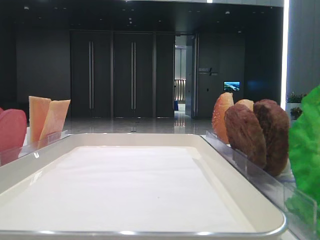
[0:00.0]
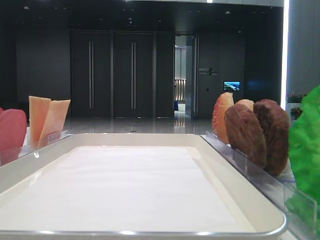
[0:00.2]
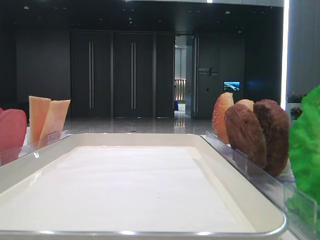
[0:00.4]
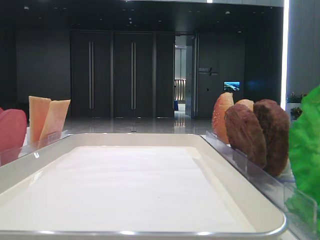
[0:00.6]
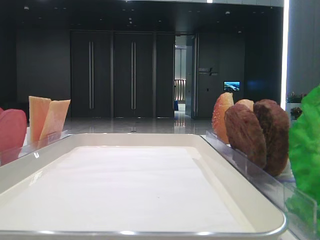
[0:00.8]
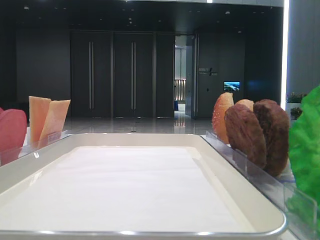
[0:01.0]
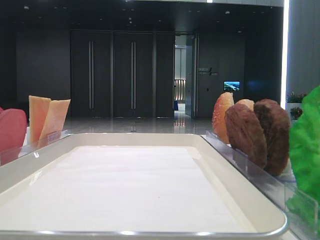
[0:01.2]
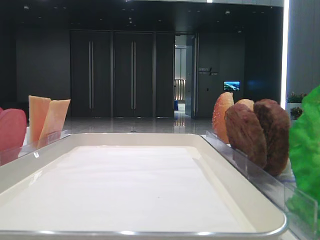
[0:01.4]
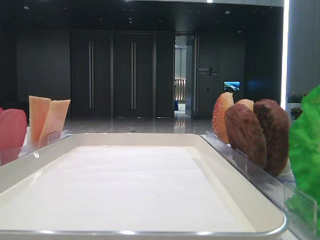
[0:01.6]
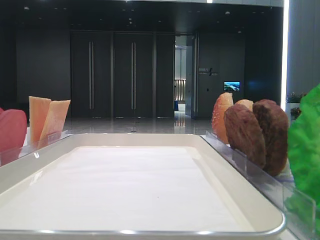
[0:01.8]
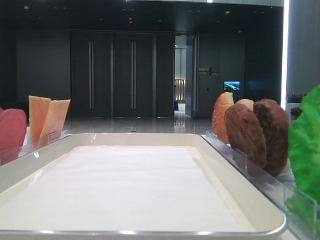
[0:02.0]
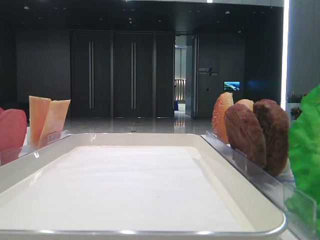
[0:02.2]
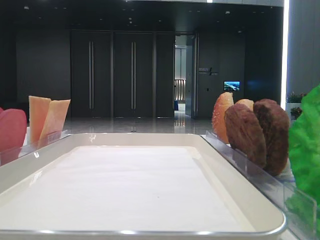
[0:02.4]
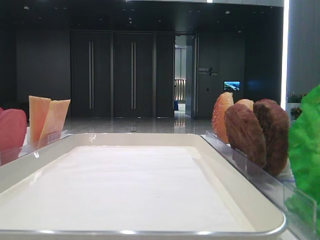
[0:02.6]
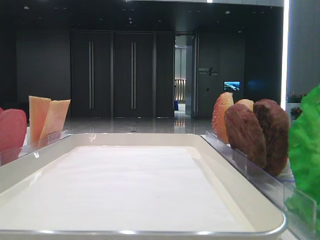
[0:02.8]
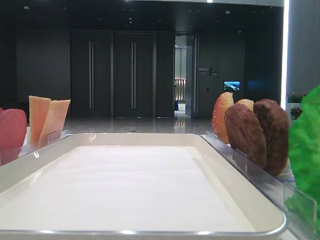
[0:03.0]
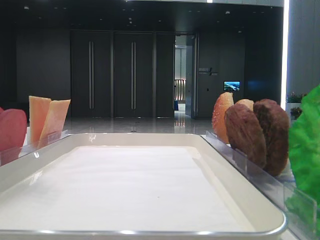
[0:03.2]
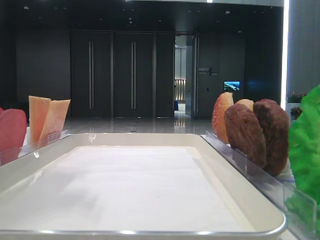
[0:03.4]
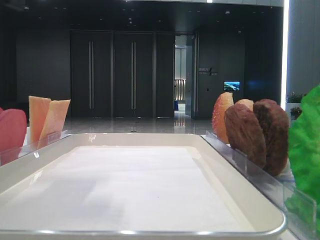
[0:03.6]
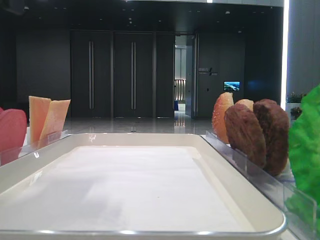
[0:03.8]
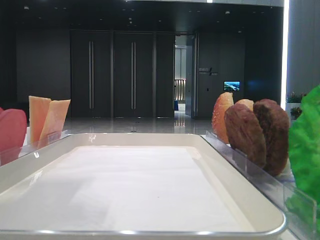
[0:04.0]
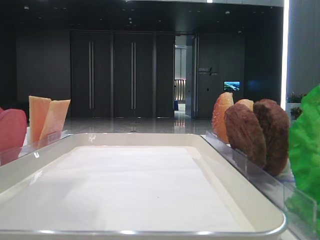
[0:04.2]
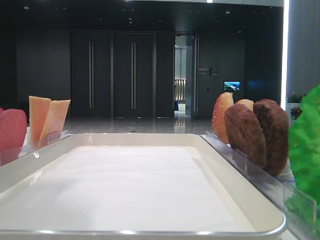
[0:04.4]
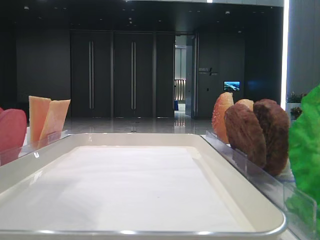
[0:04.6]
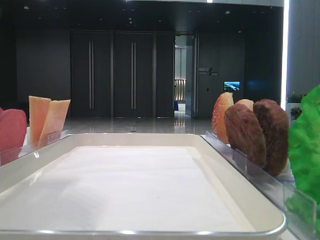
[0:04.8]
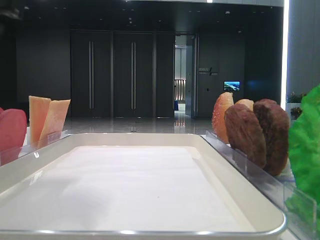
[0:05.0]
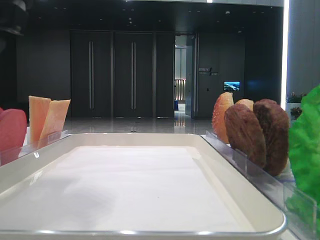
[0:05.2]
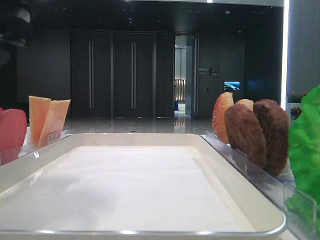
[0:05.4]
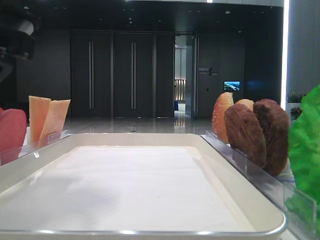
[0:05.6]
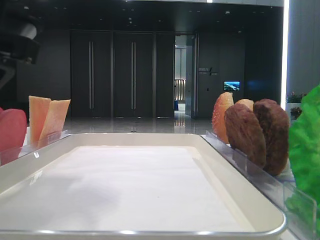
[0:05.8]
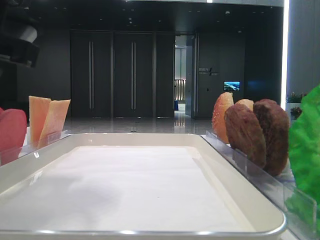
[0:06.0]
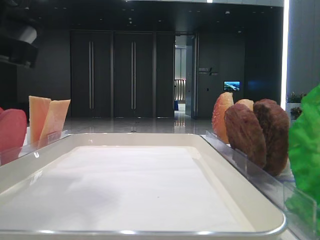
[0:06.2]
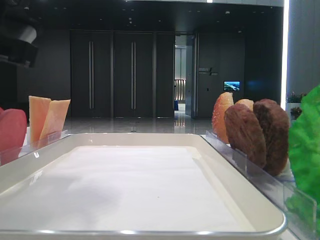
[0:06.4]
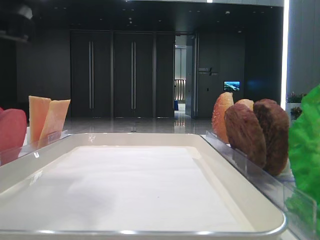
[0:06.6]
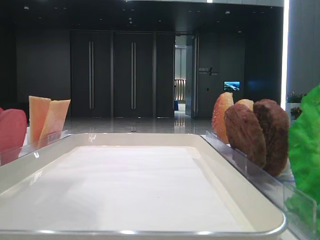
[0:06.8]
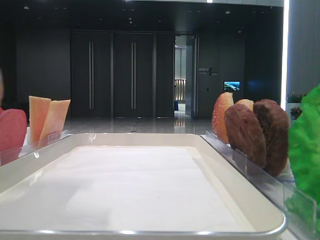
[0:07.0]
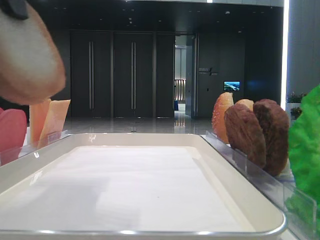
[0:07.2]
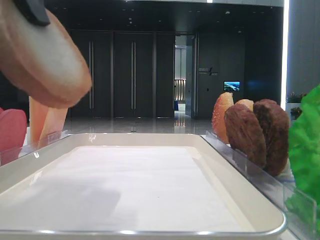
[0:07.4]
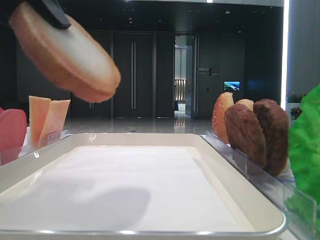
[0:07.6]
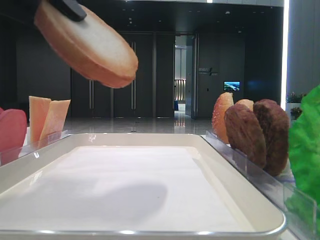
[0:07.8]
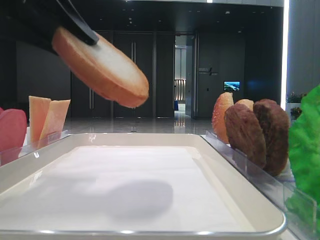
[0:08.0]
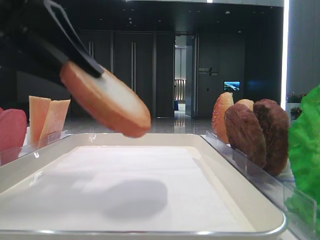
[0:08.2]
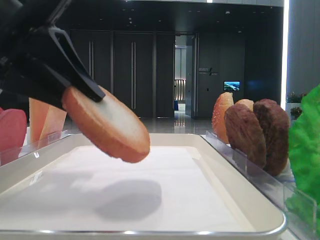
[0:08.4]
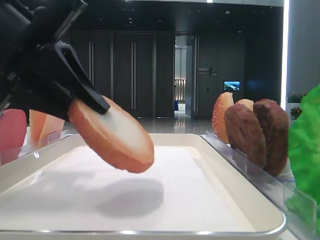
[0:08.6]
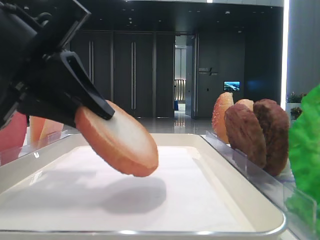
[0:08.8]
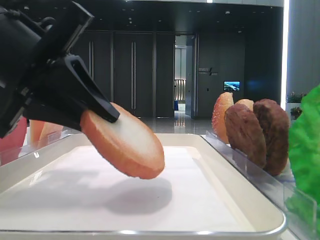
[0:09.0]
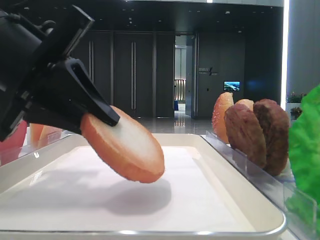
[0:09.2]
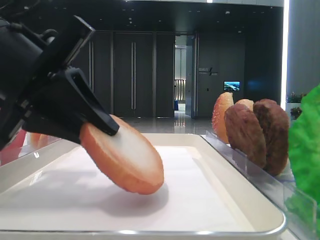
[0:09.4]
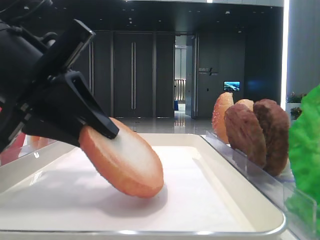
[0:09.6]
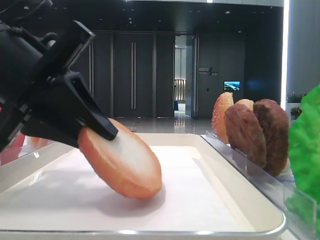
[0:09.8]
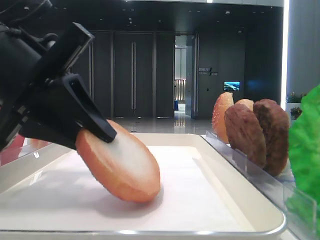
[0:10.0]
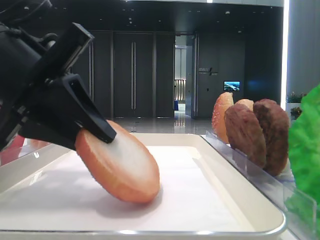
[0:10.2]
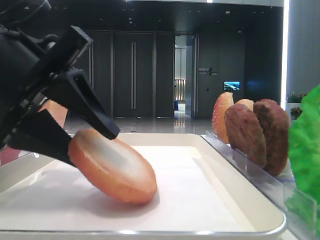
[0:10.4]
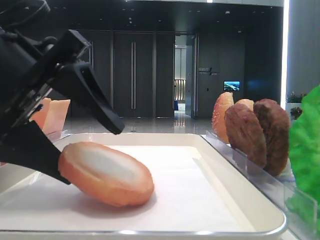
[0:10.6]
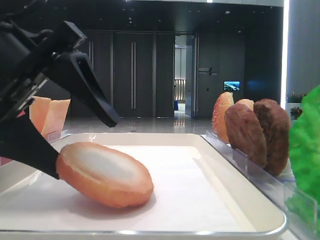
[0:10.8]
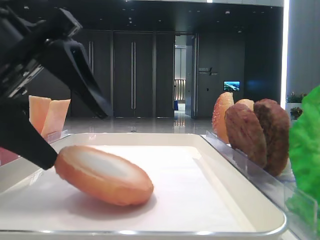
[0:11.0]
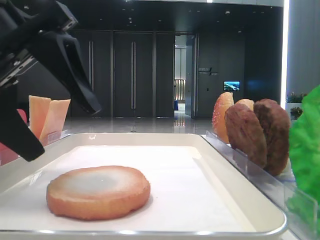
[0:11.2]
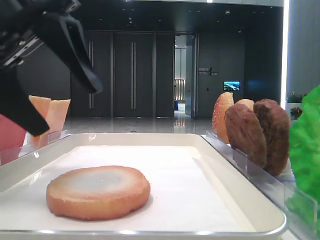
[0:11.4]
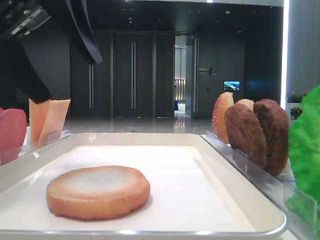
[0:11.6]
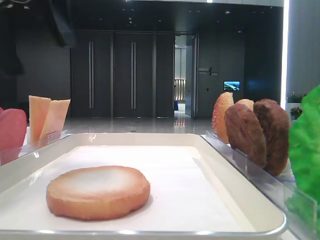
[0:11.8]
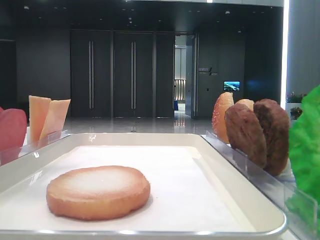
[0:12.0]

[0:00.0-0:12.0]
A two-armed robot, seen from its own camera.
Step, 0:00.0 to 0:06.4: Pick up the bottom bread with the left hand.
Step, 0:06.6 to 0:11.0: Place the bread on the tray with the left hand.
0:03.0 to 0:04.4: The left gripper is displaced to the right and backward by approximately 10 cm.
0:04.4 to 0:06.0: The left gripper is displaced downward by about 5 cm, and closes up.
0:07.6 to 0:09.0: The left gripper goes roughly 10 cm downward.
0:09.0 to 0:10.4: The left gripper opens its fingers.
0:10.4 to 0:12.0: The left gripper shifts about 15 cm upward and to the left, and opens.

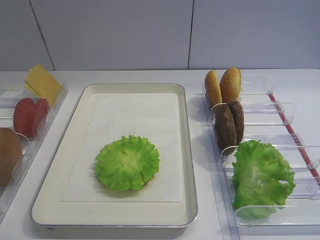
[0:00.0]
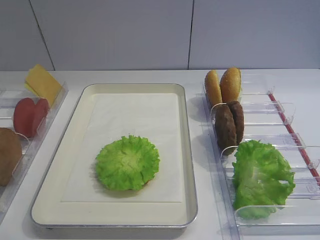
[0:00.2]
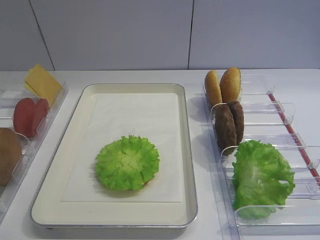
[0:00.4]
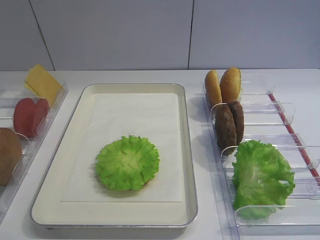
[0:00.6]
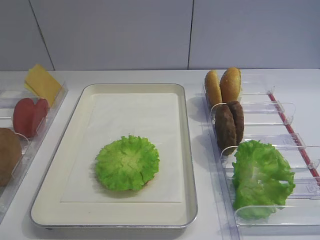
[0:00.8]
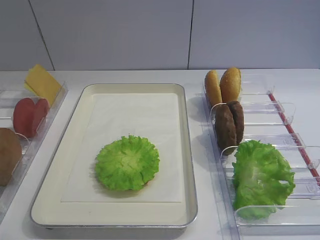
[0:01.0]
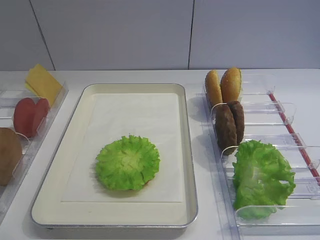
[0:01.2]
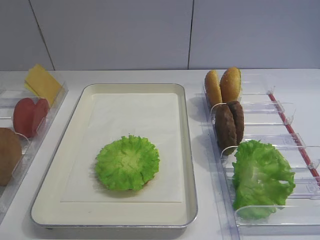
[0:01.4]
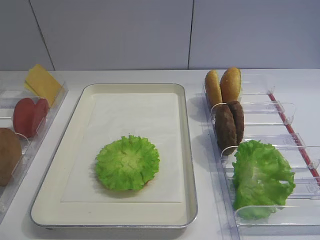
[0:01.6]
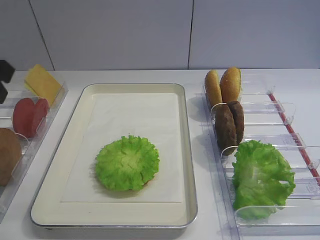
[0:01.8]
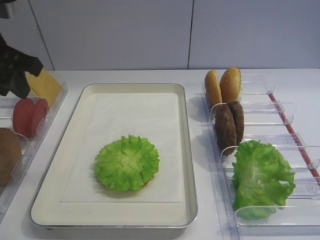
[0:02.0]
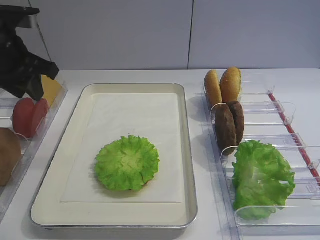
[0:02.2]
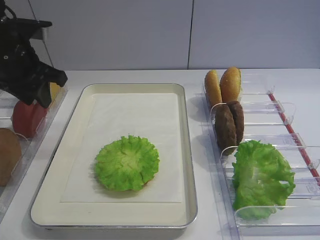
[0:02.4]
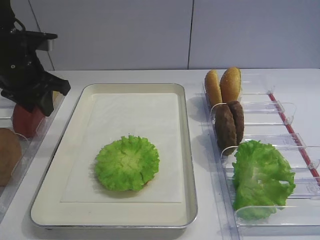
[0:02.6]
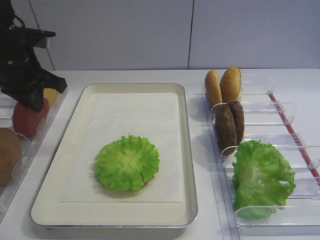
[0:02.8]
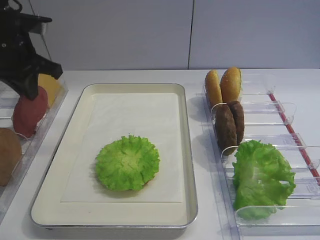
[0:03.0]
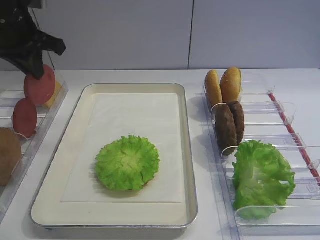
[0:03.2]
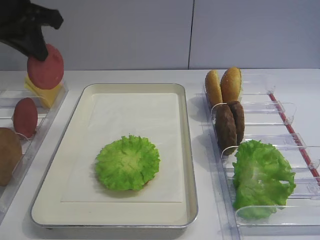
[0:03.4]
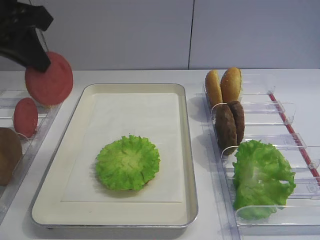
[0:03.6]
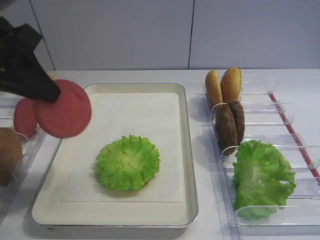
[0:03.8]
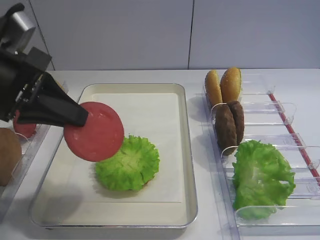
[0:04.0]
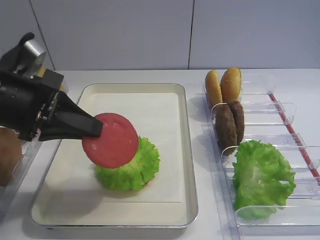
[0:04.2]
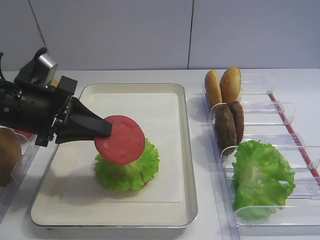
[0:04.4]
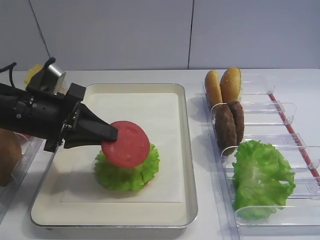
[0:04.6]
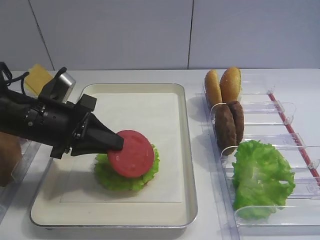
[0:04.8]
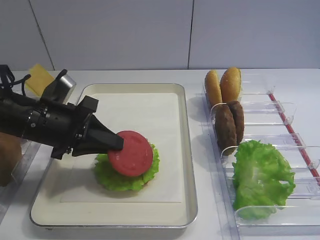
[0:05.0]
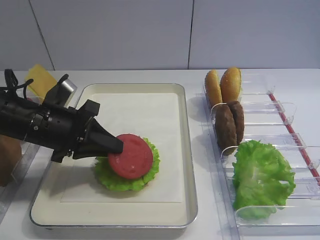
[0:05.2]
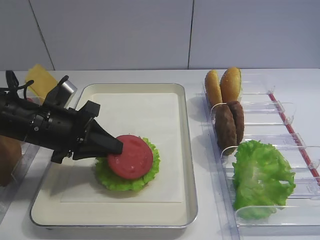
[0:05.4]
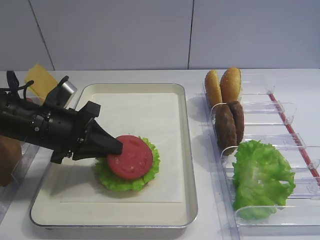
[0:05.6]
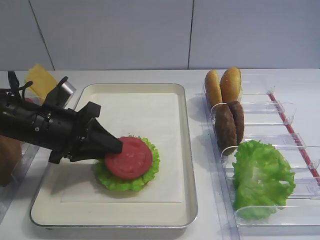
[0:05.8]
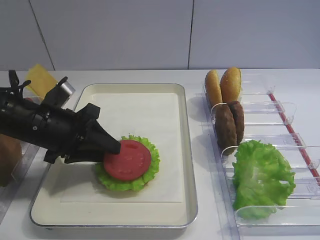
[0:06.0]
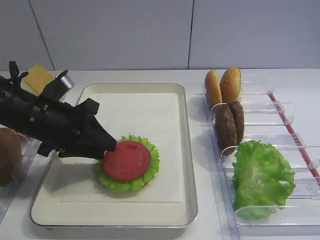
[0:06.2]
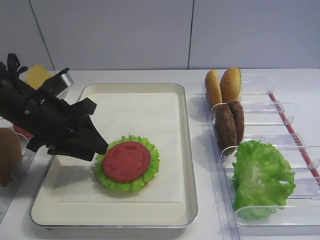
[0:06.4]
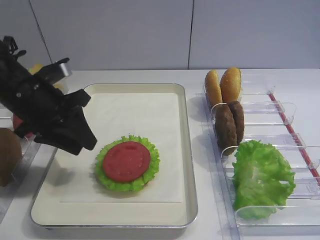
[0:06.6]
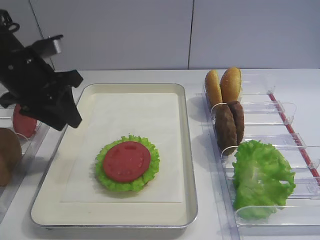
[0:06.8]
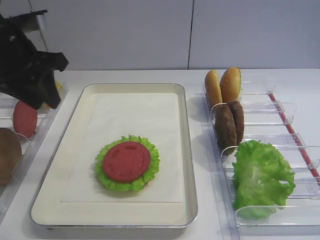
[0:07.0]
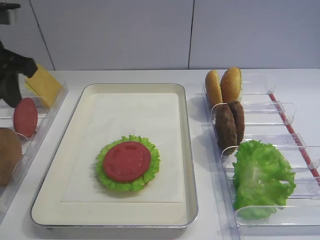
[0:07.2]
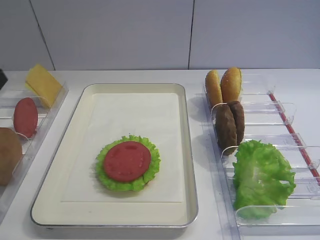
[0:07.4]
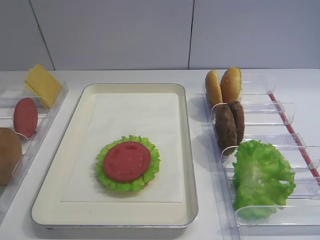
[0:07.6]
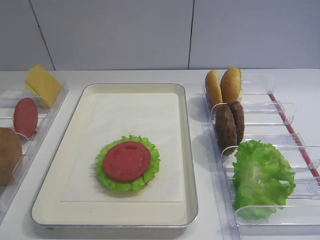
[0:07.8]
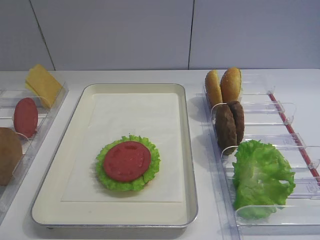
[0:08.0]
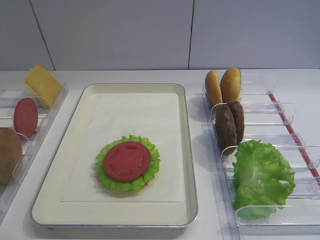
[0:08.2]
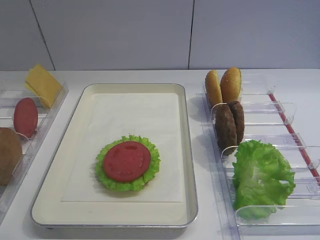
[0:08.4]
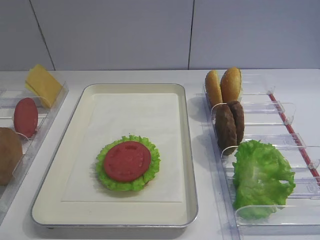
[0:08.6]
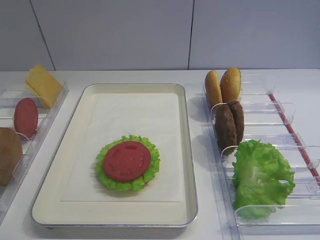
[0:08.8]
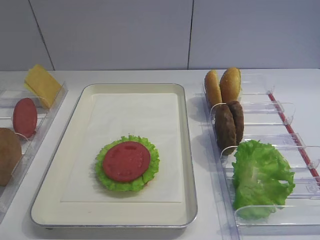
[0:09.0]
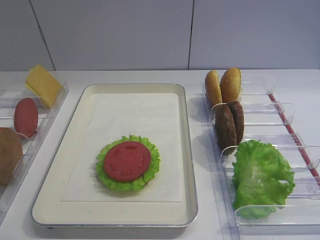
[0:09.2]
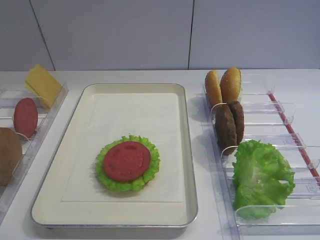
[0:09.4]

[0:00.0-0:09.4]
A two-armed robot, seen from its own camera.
Step, 0:00.0 to 0:03.2: Pick up the tomato slice with the left gripper.
Step, 0:03.4 to 0:06.6: Place the tomato slice on the lettuce leaf with the left gripper.
0:01.6 to 0:03.2: The left gripper moves forward, some 30 cm, and closes up.
0:03.2 to 0:04.8: The left gripper goes about 15 cm backward, downward and to the right.
0:04.8 to 0:06.2: The left gripper opens its fingers.
0:06.2 to 0:07.8: The left gripper moves upward, to the left and backward, approximately 20 cm.

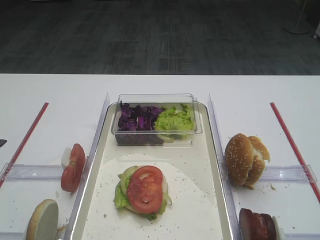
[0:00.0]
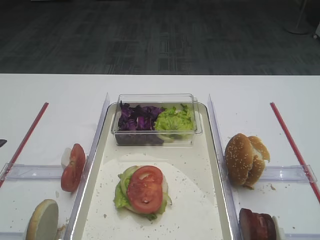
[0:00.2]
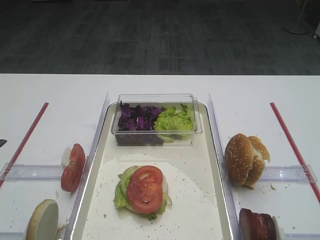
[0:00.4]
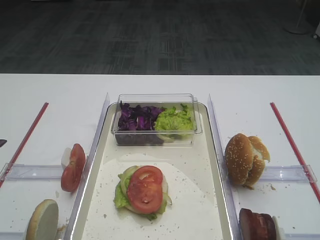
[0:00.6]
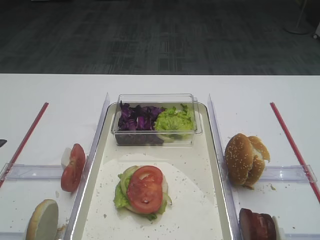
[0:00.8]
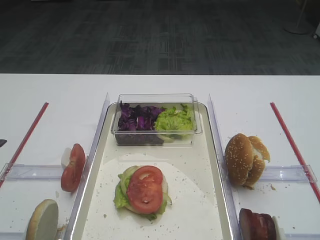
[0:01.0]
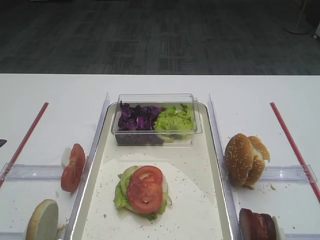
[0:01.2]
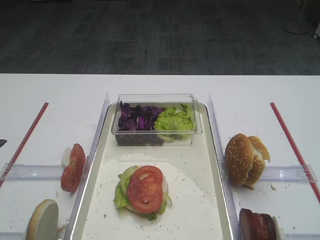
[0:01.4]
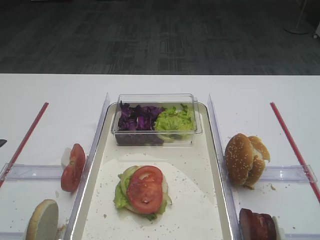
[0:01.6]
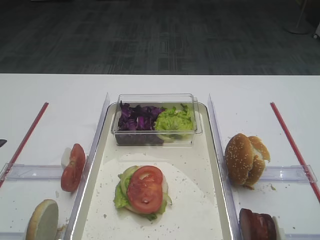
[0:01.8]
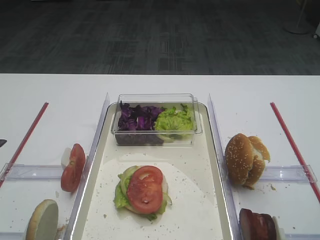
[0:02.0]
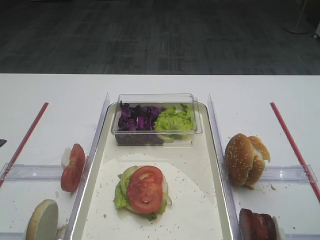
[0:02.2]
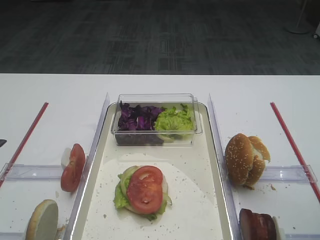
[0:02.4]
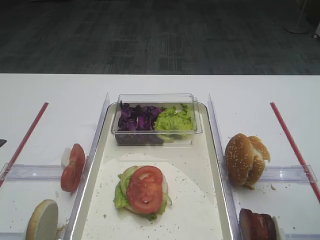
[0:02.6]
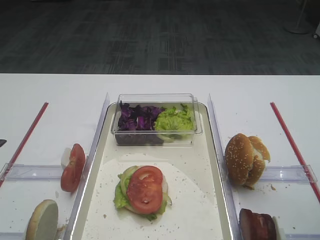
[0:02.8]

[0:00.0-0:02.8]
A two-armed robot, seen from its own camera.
0:01.4 to 0:02.8: The right gripper heads forward, covering roughly 15 cm.
